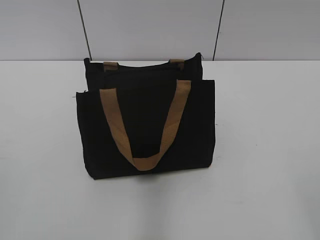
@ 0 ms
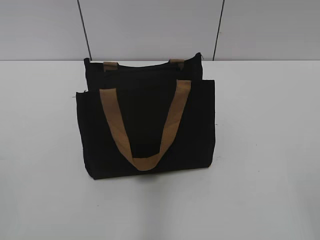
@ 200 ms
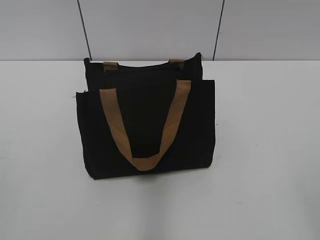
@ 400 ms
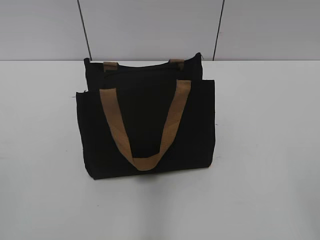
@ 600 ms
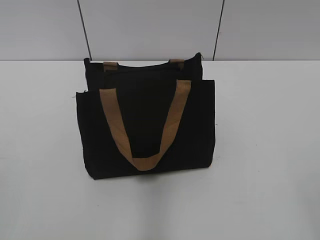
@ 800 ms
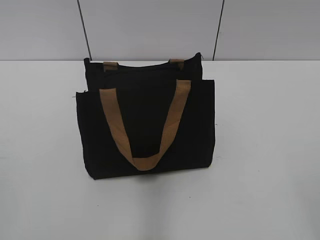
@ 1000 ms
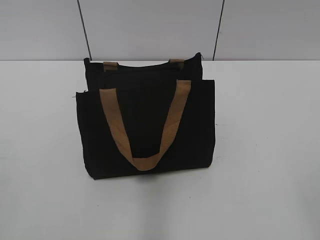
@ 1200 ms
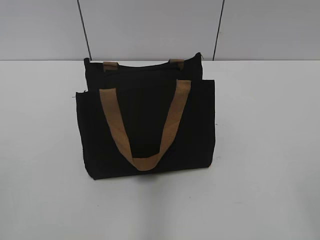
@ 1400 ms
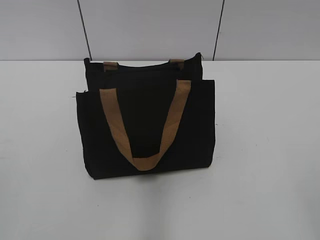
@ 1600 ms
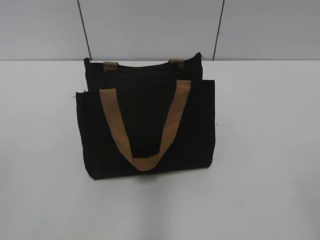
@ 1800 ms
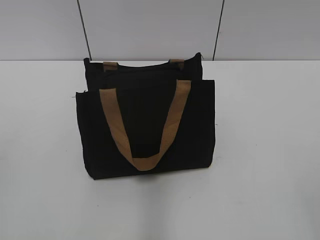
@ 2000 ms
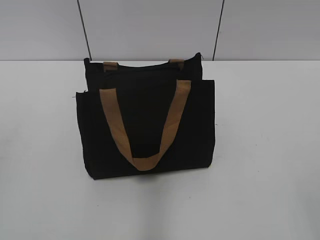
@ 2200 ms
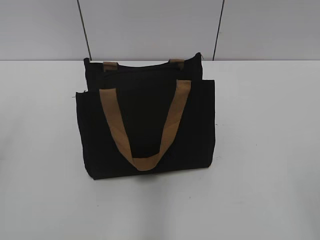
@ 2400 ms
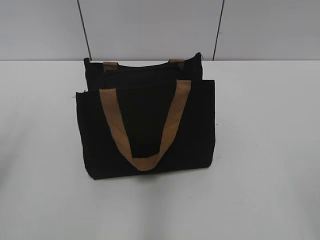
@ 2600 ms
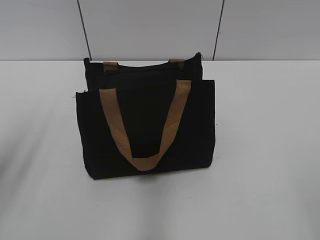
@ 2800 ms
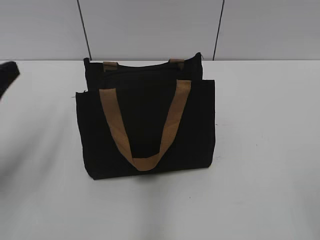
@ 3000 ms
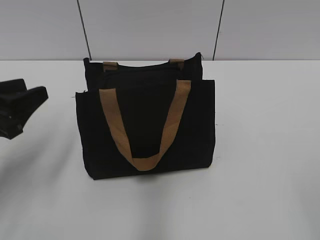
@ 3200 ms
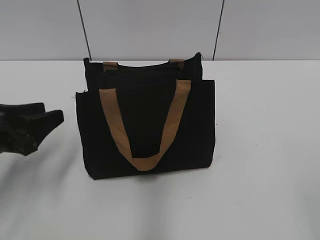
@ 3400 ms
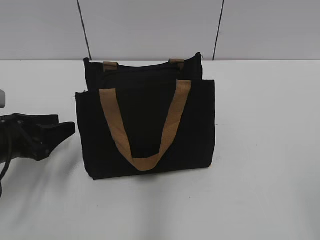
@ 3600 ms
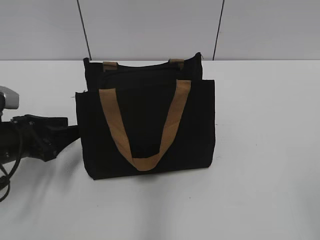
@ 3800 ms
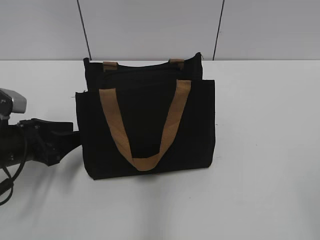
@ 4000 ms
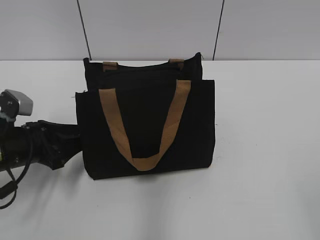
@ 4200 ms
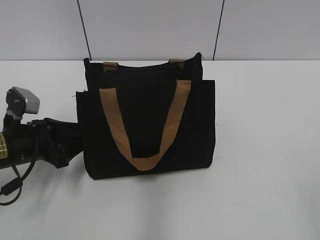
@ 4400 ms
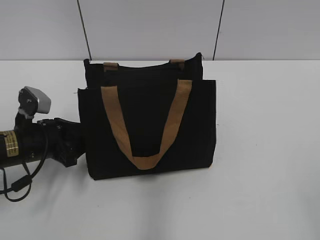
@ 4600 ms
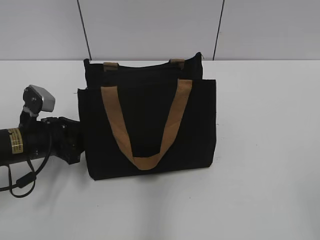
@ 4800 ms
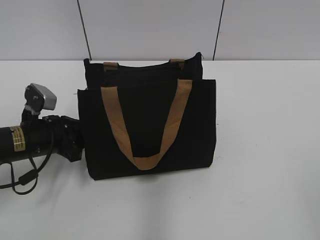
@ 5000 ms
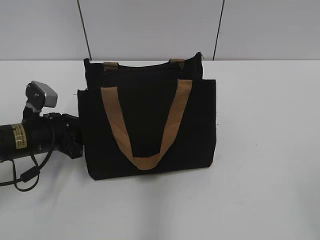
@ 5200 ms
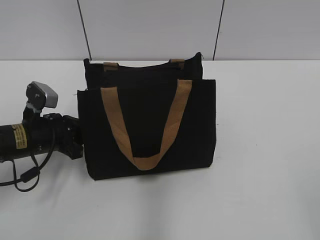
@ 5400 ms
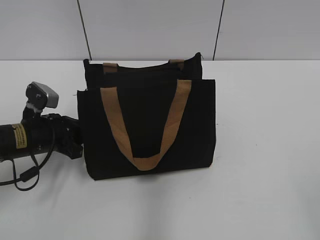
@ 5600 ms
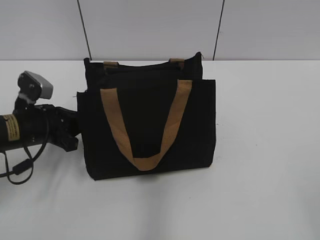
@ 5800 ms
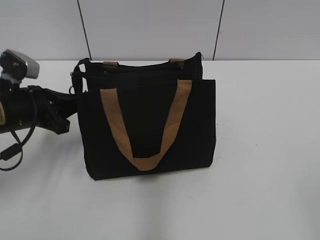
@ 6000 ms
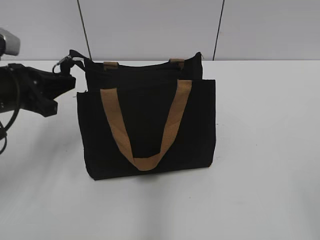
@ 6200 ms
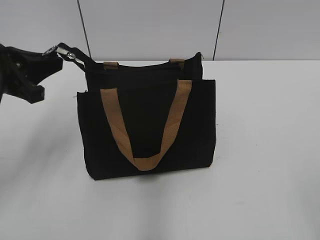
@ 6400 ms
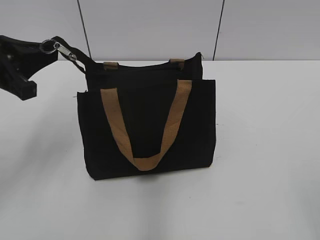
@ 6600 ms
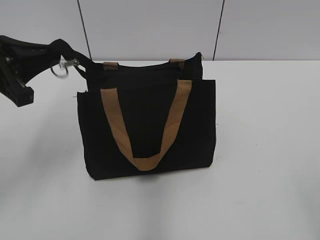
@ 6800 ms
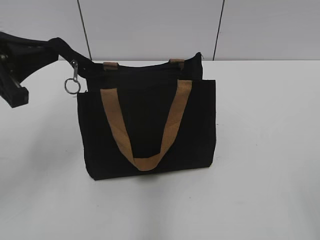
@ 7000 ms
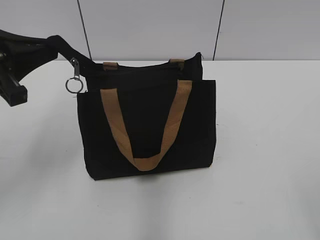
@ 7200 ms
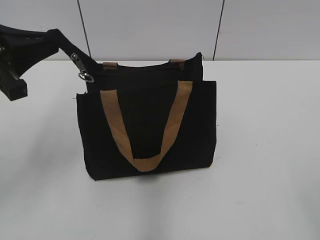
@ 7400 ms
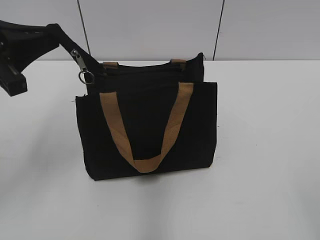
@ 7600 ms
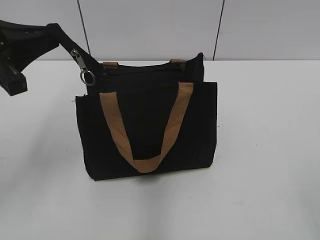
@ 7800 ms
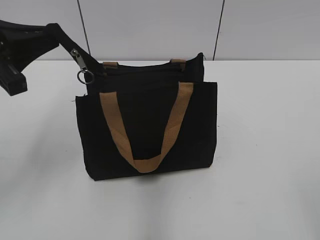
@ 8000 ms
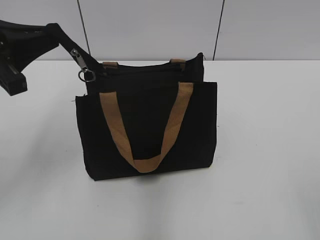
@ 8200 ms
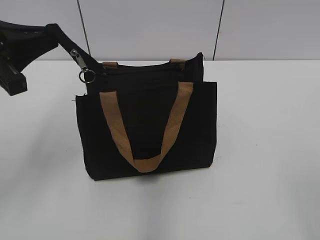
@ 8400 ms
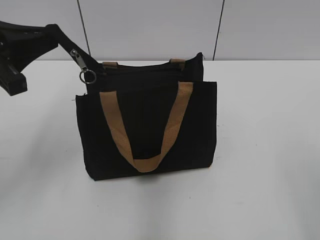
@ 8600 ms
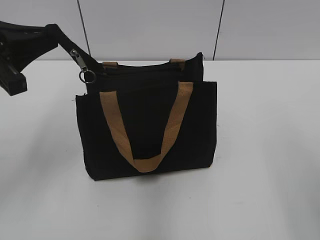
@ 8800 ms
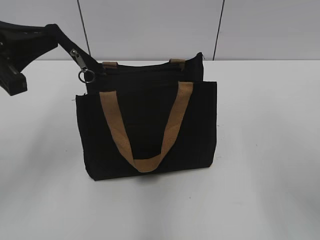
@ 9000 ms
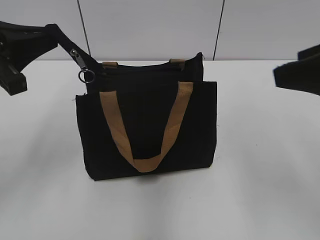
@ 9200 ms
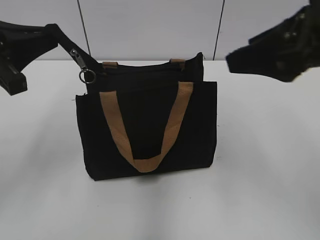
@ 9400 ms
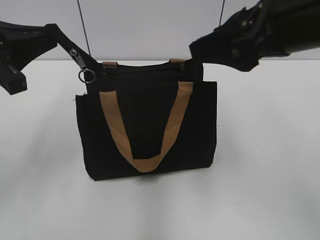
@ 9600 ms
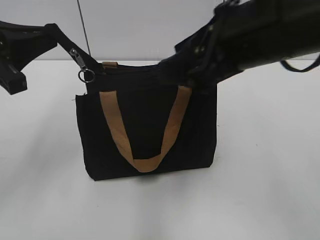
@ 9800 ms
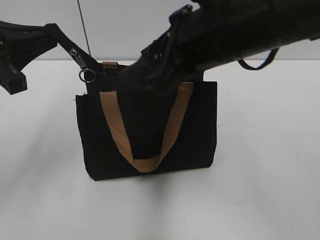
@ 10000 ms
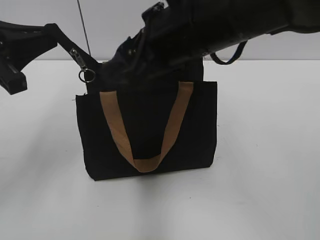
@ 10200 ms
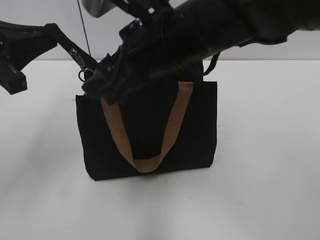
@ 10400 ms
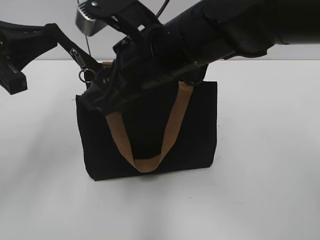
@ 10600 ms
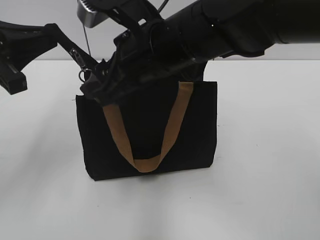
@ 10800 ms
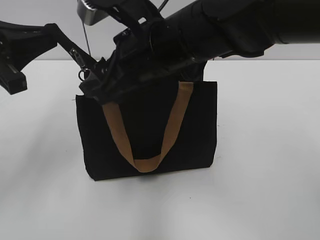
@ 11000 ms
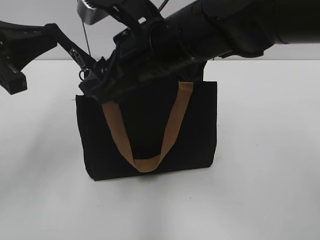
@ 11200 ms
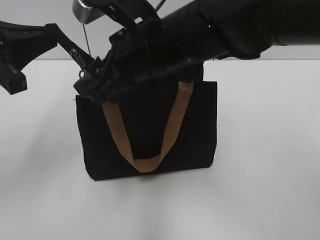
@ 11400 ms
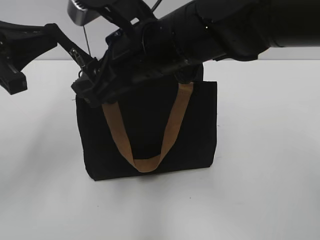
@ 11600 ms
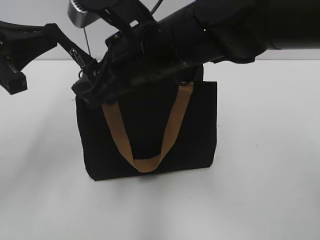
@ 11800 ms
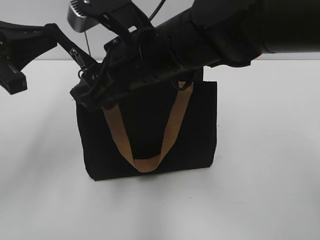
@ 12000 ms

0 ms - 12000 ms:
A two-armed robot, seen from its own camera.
1600 ms - 3000 ms: The left gripper moves forward, approximately 20 cm.
3000 ms - 4400 ms: The left gripper shifts approximately 15 cm downward and forward.
4400 ms - 6000 ms: The left gripper closes.
6000 ms - 7600 ms: The left gripper is displaced upward by roughly 15 cm.
9000 ms - 10400 ms: The right gripper is displaced to the left and forward by approximately 25 cm.
10400 ms - 12000 ms: The grippers stay close to where they were, moving slightly.

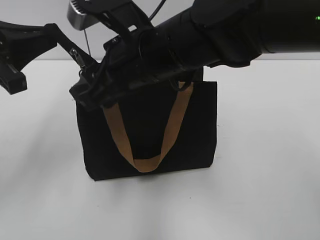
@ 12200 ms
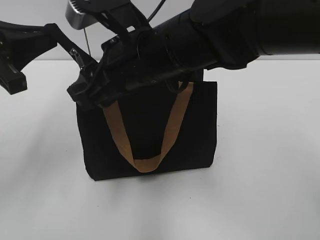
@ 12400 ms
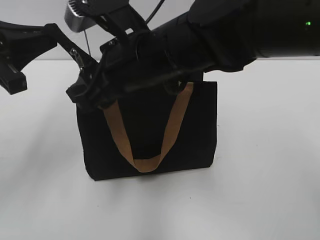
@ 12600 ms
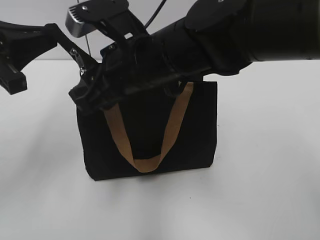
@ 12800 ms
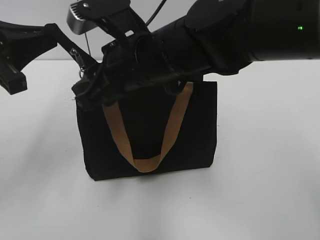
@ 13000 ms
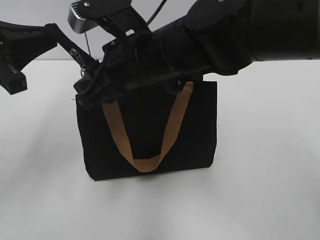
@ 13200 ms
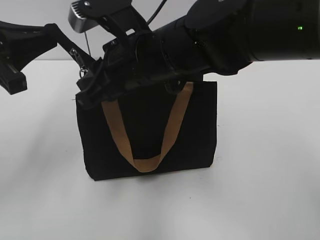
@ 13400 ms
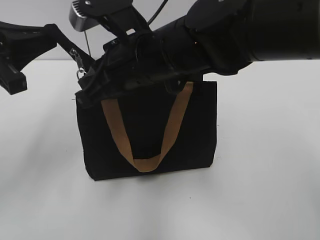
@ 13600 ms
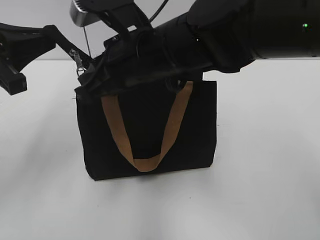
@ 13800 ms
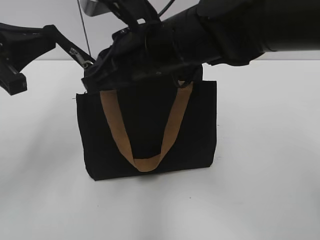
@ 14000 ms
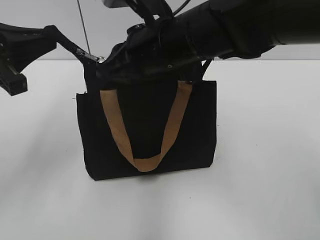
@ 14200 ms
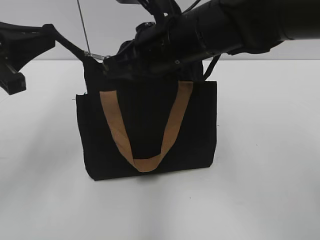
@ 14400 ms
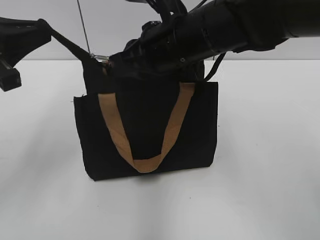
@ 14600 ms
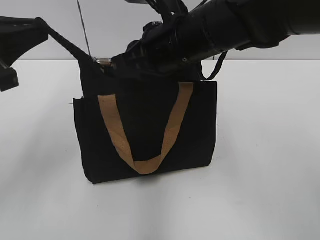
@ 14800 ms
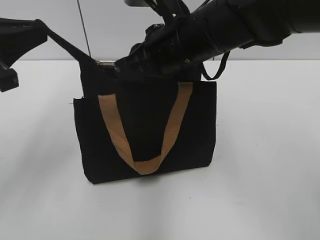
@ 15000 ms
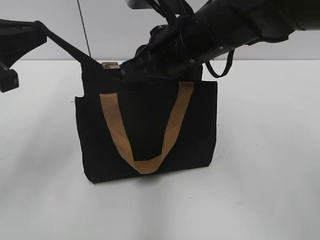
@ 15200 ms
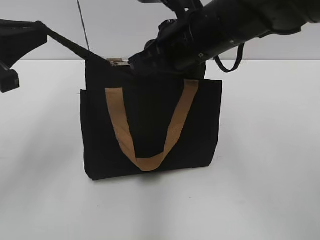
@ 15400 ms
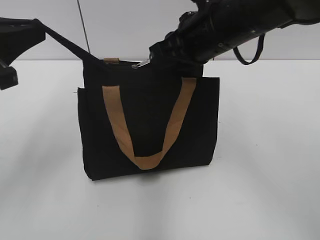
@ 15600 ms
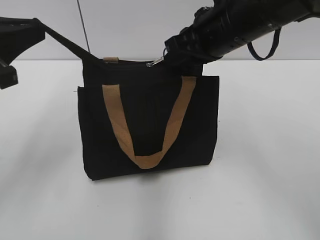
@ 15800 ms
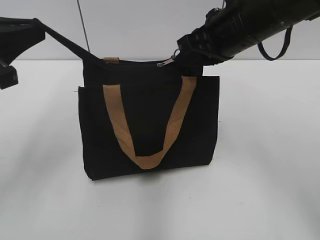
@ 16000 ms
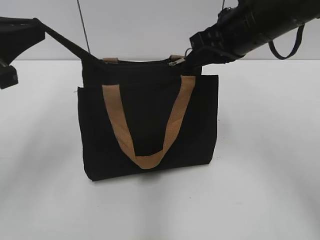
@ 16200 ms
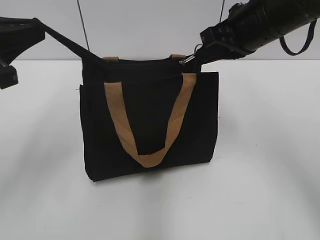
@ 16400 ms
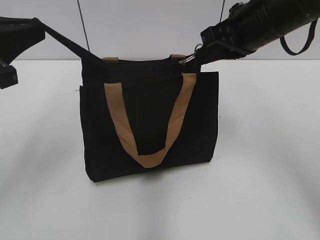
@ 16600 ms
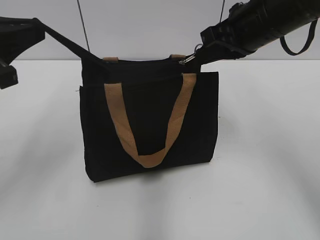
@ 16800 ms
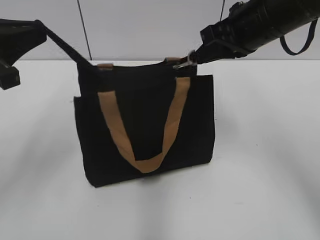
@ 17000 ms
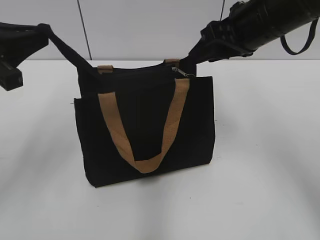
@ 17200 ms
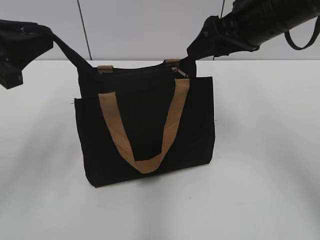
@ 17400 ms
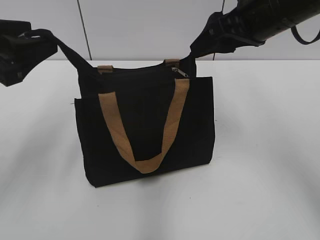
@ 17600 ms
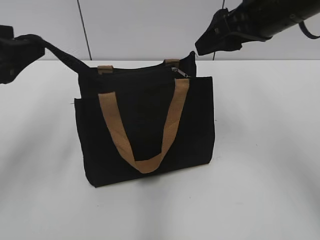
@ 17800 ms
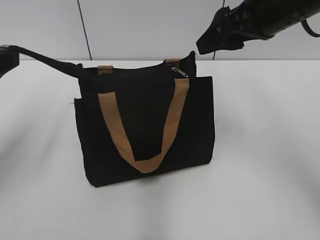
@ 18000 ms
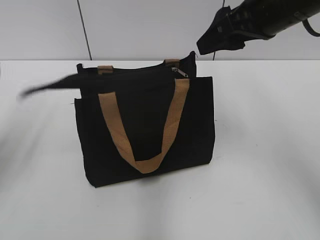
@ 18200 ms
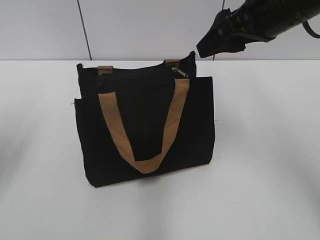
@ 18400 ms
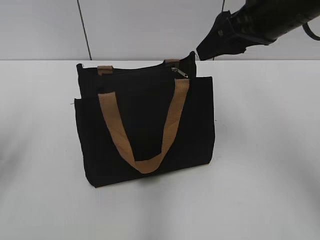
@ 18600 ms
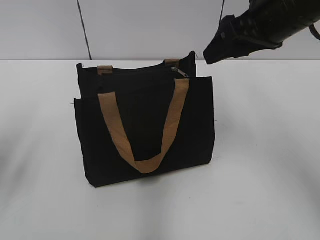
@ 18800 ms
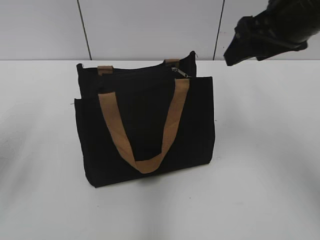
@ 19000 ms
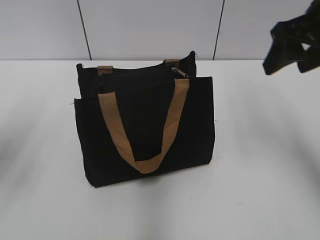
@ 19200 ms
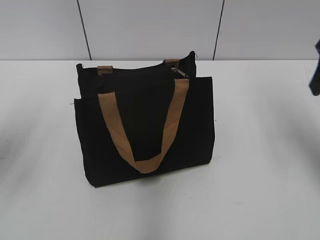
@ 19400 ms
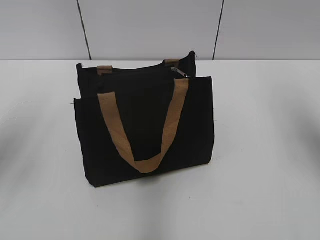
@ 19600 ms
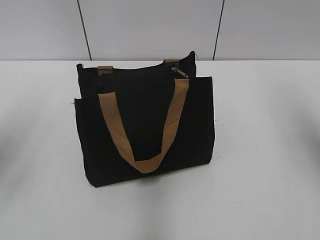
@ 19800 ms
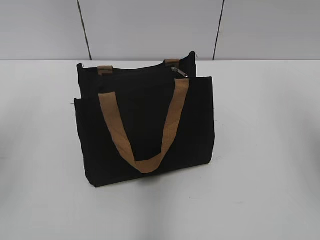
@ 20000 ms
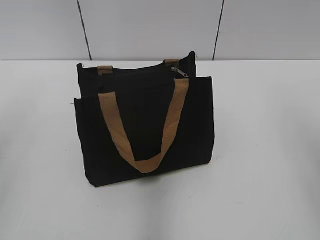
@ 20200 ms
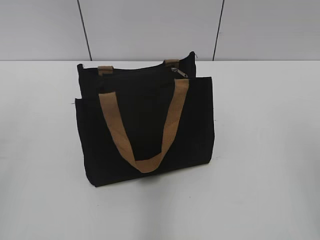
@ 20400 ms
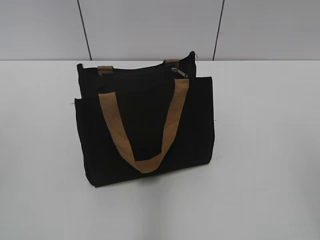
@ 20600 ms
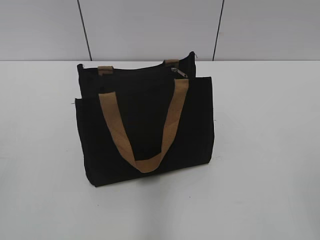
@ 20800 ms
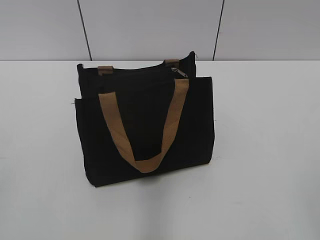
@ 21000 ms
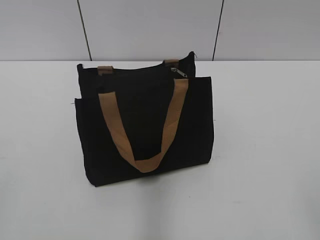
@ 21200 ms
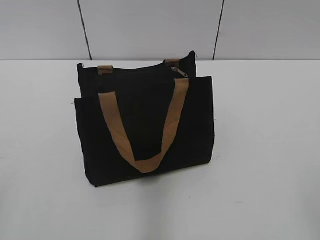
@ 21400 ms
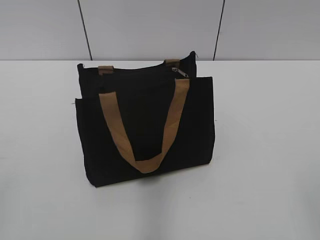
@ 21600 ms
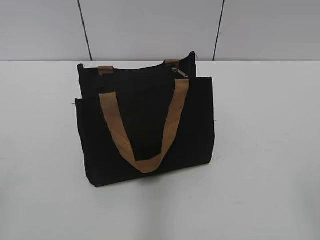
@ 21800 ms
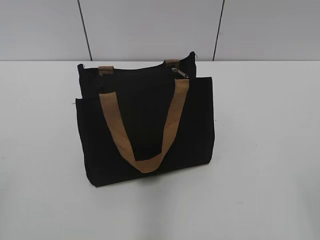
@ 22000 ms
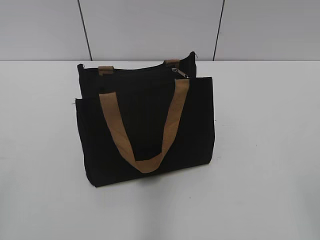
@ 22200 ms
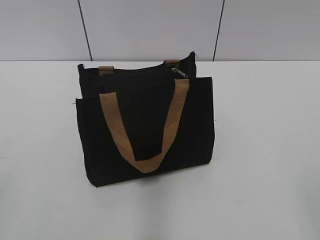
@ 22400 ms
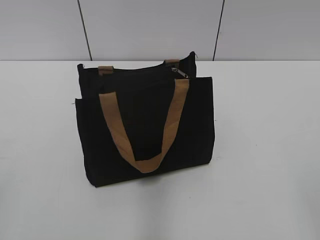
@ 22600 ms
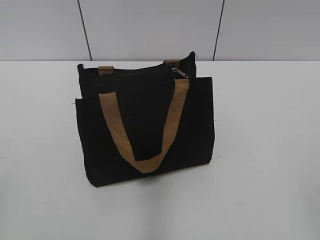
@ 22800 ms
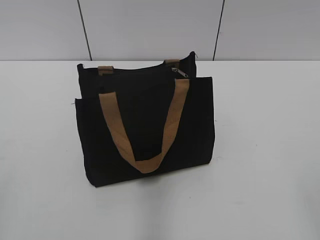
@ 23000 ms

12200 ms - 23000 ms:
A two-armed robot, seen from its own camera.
Step, 12200 ms - 17000 ms: Zip up the bag with your right hand.
Step, 17200 ms - 18200 ms: Grab the zipper with your left hand.
12200 ms - 13800 ms: The right gripper closes.
13800 ms - 15200 ms: The right gripper travels to the right by about 5 cm.
15200 ms - 16800 ms: The right gripper travels to the right by some 10 cm.
16800 ms - 18400 ms: The right gripper opens its fingers. Meanwhile the left gripper is displaced to the left by about 5 cm, and opens.
18400 ms - 20000 ms: The right gripper heads to the right and backward, covering about 15 cm.
21400 ms - 23000 ms: The two grippers keep their place.
